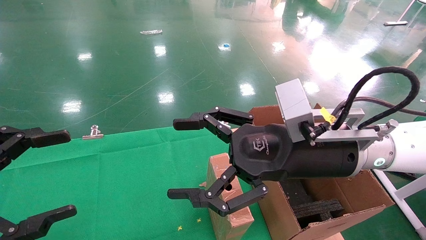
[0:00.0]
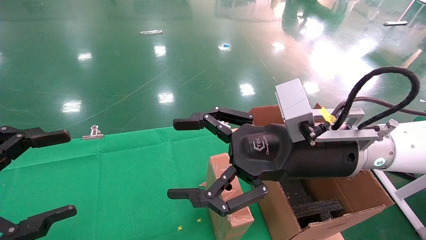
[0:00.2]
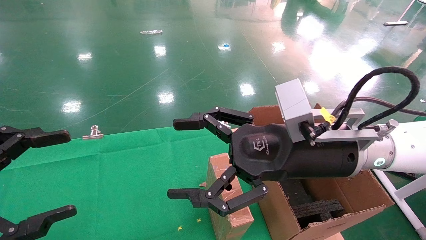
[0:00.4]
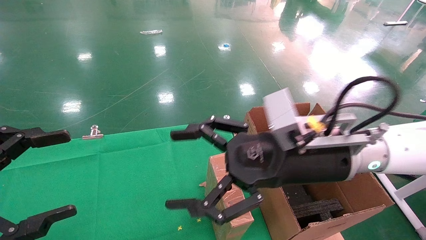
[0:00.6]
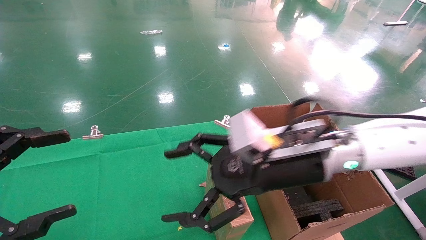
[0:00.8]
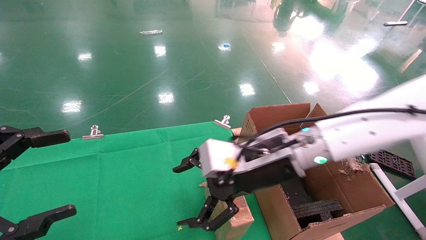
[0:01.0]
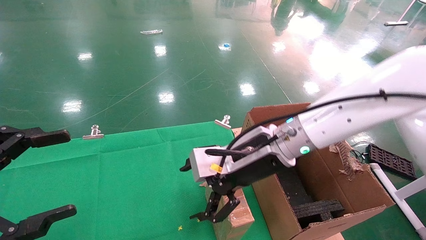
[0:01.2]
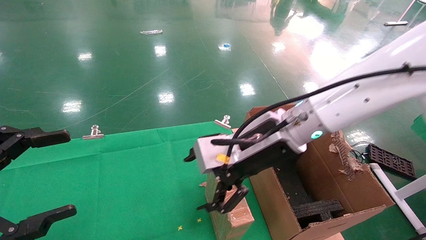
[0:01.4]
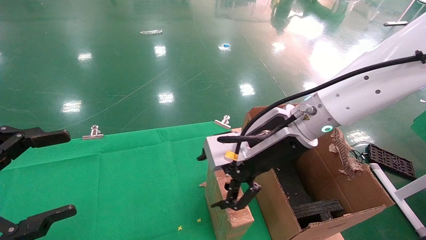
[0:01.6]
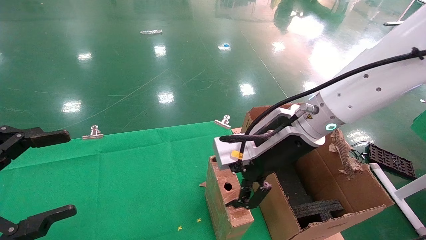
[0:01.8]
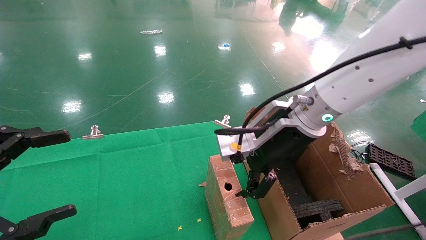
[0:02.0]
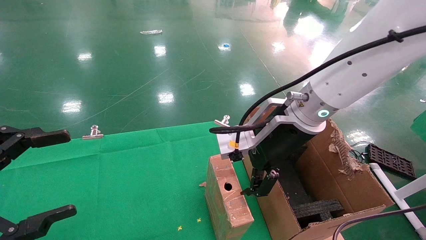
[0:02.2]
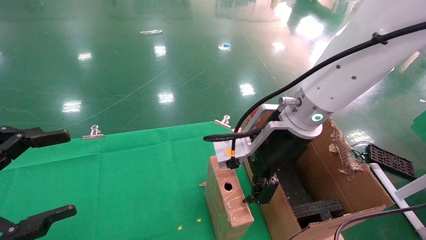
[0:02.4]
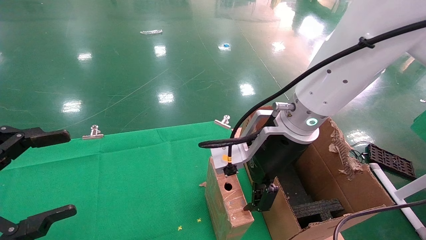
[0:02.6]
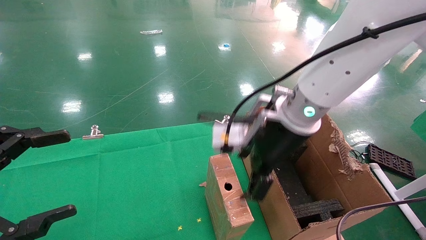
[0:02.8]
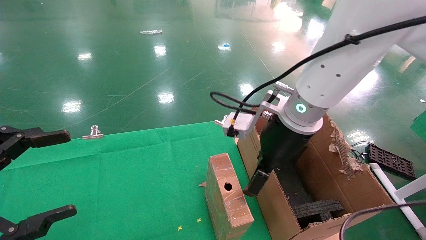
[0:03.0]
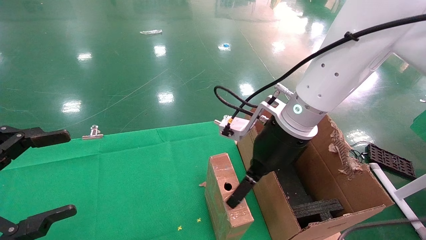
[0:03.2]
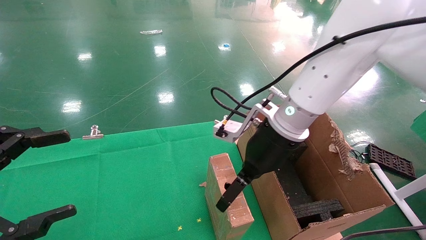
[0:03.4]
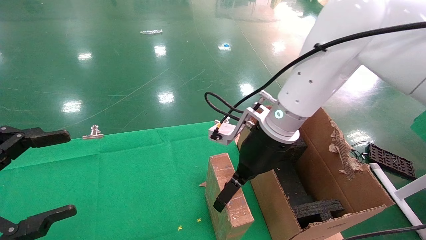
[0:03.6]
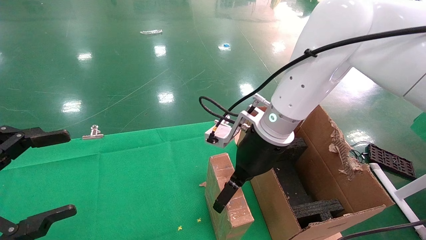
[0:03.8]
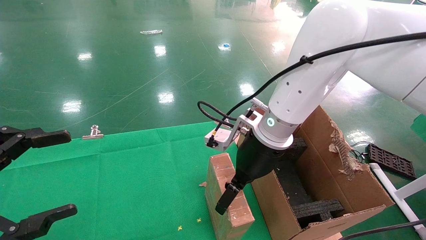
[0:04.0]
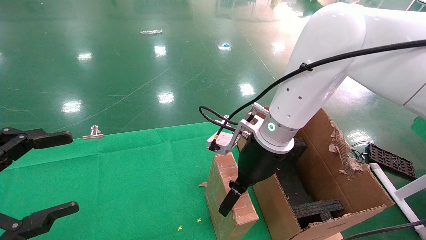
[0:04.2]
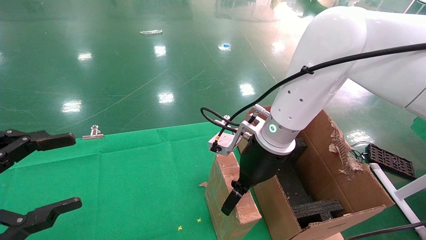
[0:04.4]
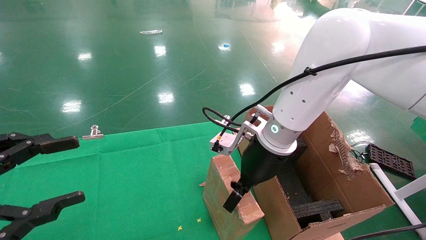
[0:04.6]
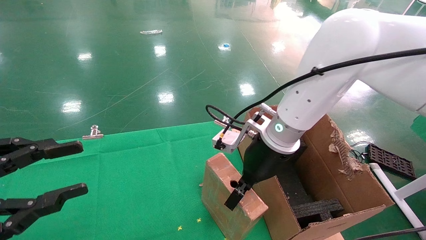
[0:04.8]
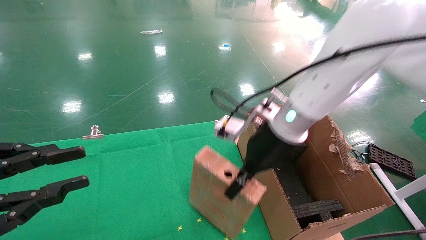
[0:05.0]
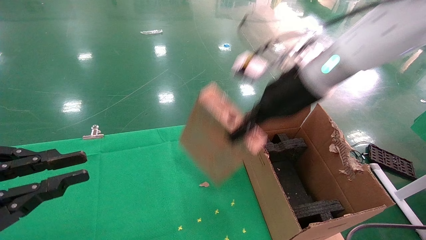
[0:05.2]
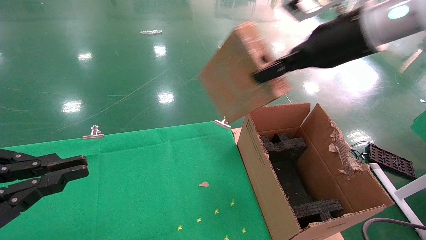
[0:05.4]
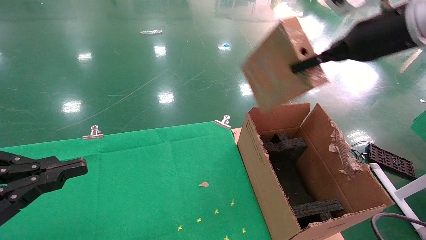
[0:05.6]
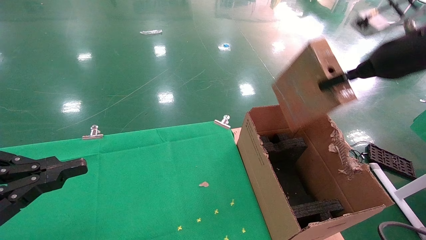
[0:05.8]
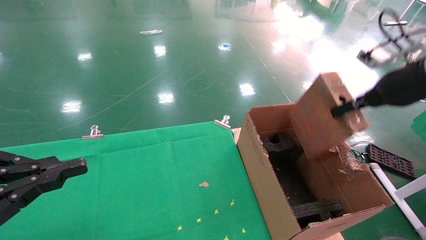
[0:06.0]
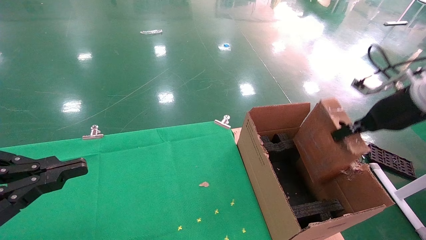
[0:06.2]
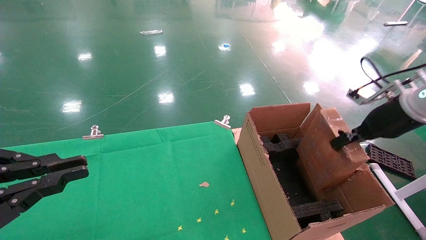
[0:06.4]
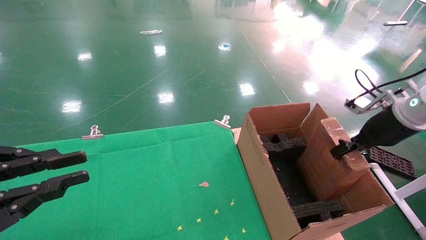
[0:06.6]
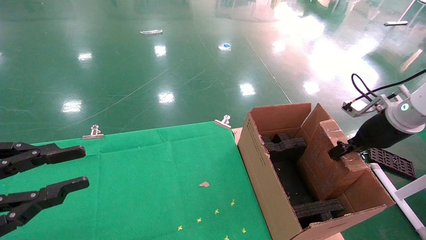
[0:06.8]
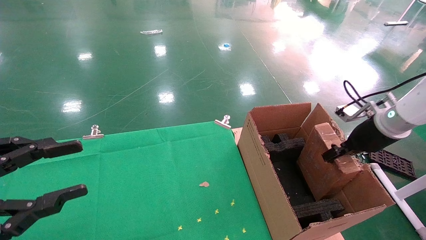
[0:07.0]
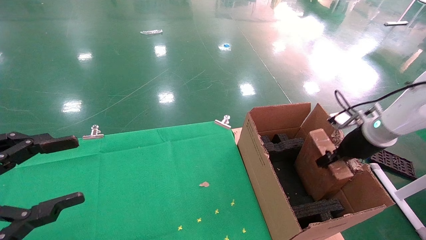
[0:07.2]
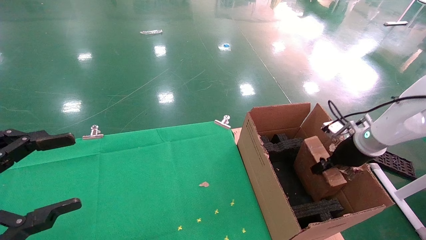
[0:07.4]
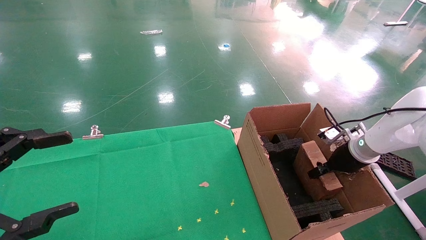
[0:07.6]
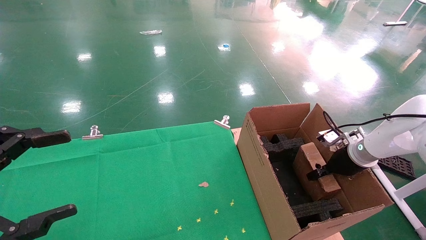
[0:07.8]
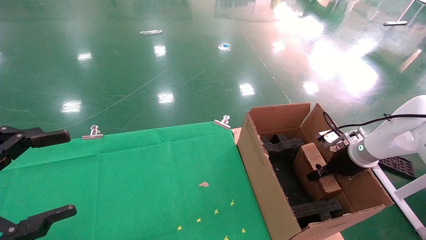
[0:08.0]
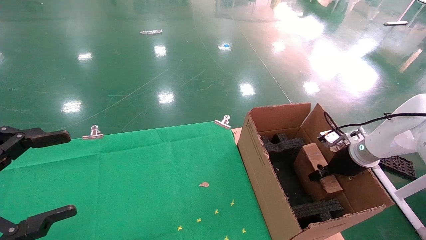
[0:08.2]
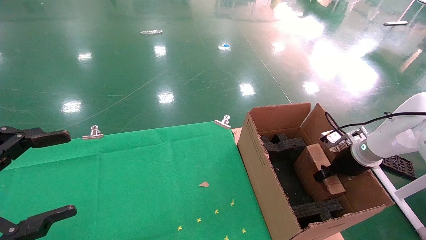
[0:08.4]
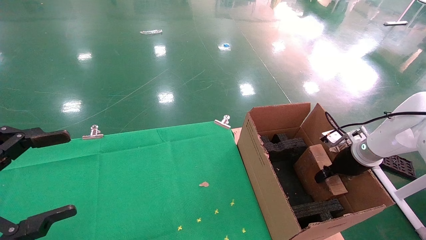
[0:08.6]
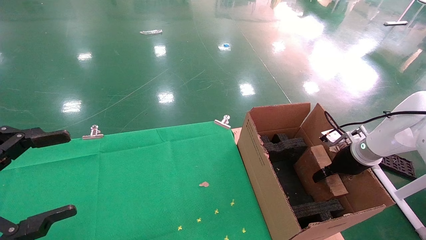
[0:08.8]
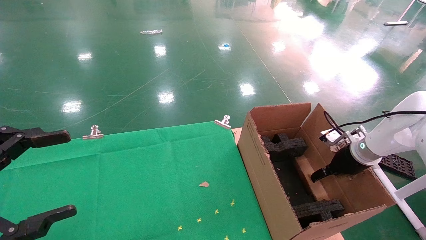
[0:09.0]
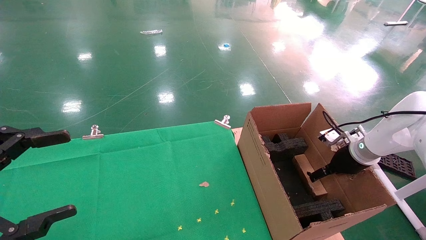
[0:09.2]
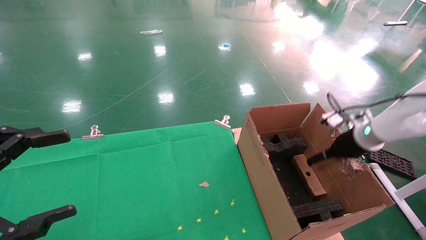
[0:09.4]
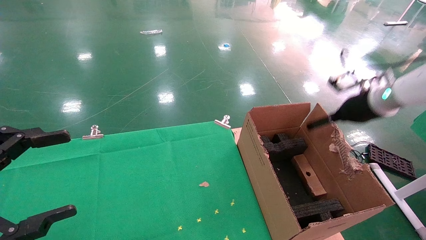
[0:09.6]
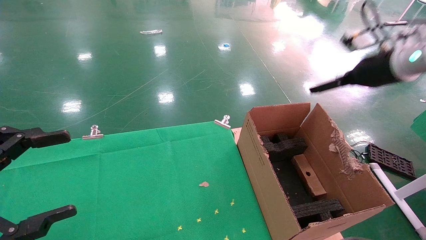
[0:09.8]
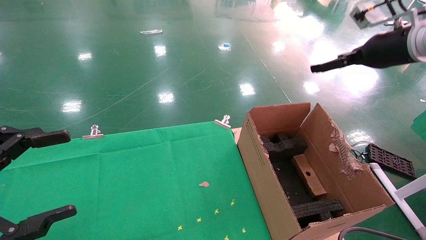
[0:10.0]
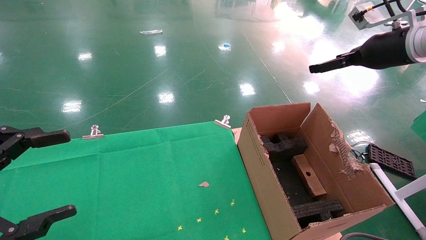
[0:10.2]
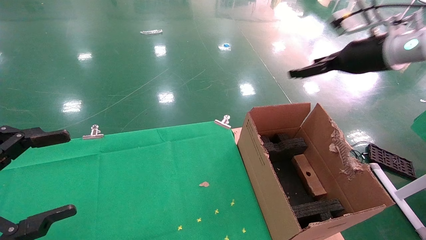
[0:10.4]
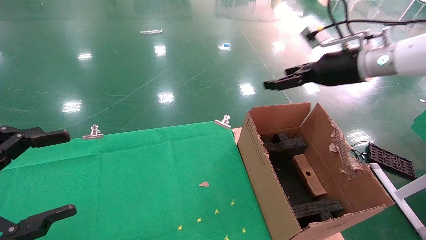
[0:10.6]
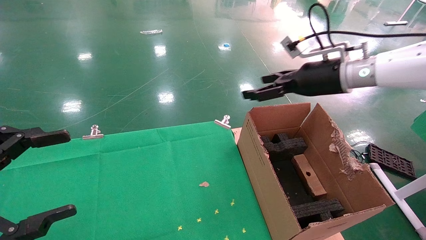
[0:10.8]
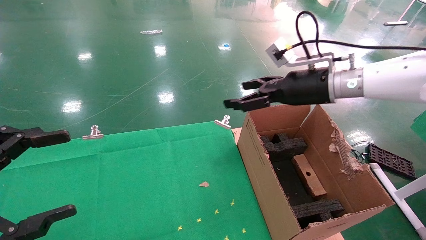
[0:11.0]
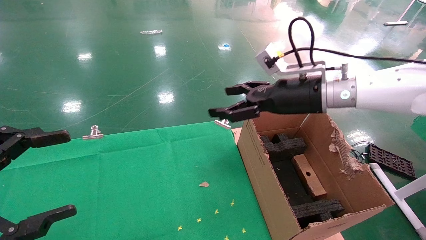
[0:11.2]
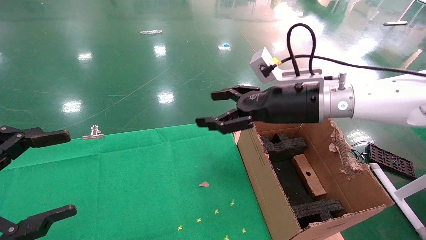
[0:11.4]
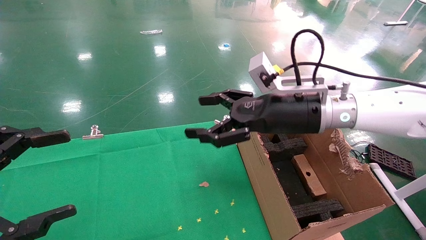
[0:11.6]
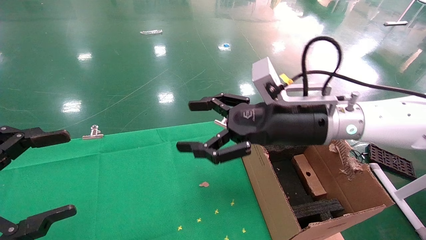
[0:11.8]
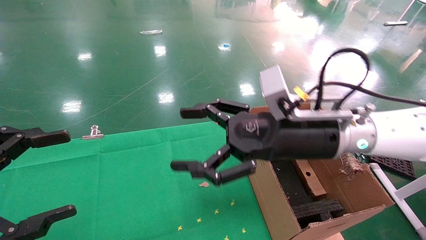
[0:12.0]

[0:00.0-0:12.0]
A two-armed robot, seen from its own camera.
Task of the whole recording: using a robotic arm to pick up a cardboard box and palace it the carton.
Step, 0:00.8 to 0:04.8: Pick up the mouse and the power cord paper box.
Step, 0:05.0 to 0:09.2: Place the mouse and the power cord paper box into the container.
0:00.0 to 0:01.6: The right gripper shifts about 5 cm forward.
0:03.0 to 0:04.4: The right gripper changes place by some 5 cm.
0:04.4 to 0:06.0: The right gripper is displaced to the right by approximately 25 cm, and closes. The left gripper closes its fingers.
0:06.0 to 0:07.6: The right gripper shifts about 20 cm downward; the left gripper opens its fingers.
0:07.6 to 0:09.0: The right gripper opens.
0:09.0 to 0:10.4: The right gripper goes roughly 25 cm upward, and opens up.
0:10.4 to 0:12.0: The right gripper moves to the left, backward and downward, some 25 cm.

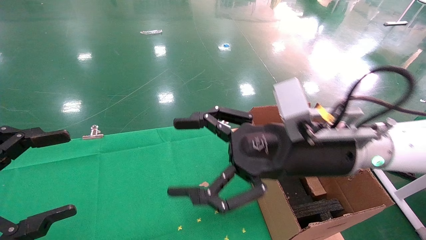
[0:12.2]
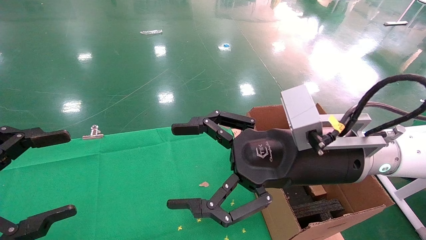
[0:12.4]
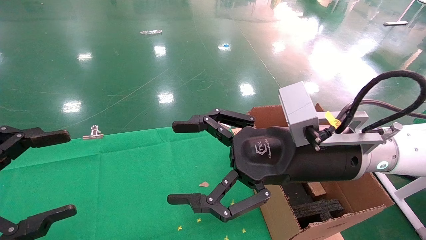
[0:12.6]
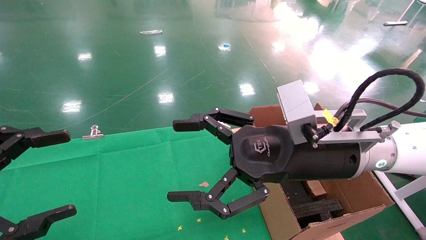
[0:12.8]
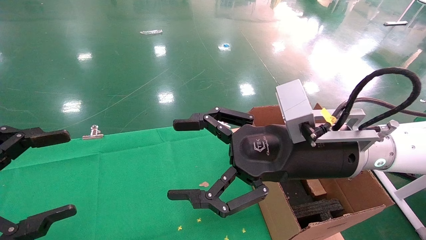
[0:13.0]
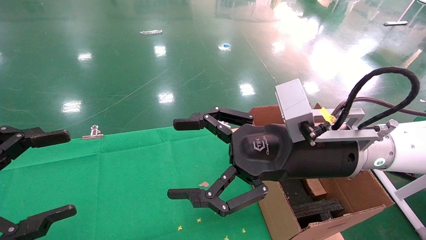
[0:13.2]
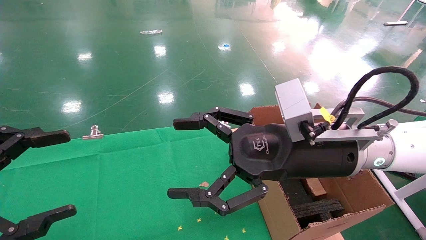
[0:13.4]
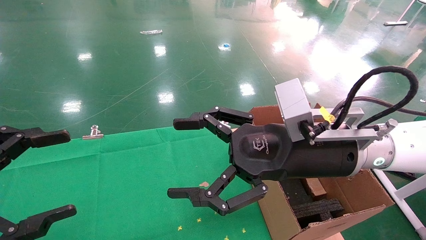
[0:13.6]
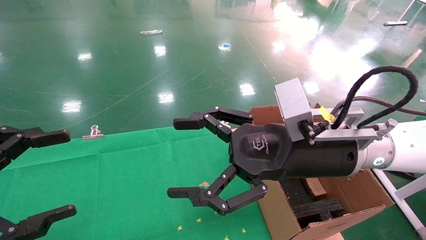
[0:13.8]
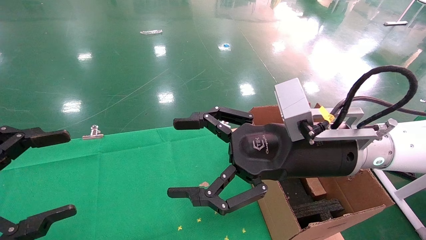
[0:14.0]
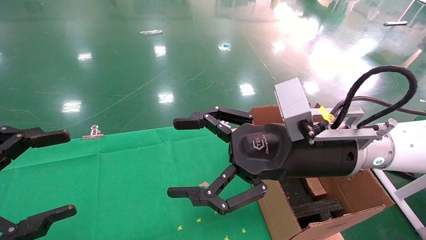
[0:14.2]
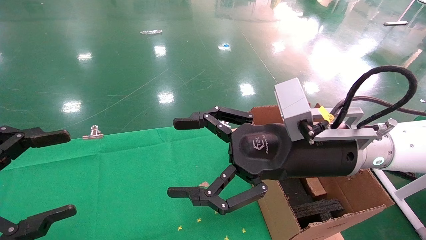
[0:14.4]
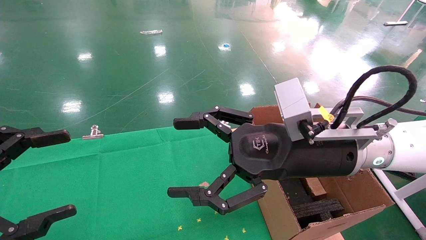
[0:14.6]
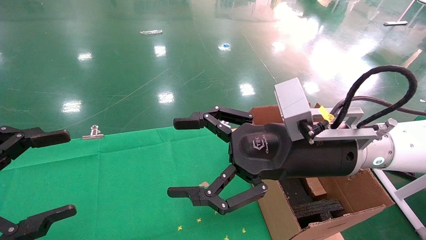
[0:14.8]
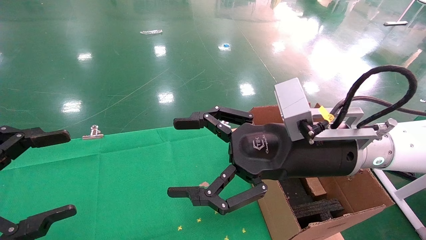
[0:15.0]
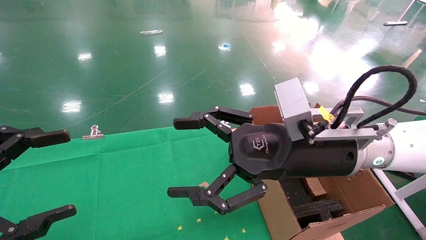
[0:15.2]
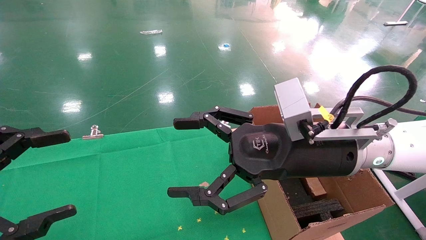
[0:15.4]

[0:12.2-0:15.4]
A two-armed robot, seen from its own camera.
Task of the whole recording: using a robotic arm to pick up a cardboard box and palace it the carton.
0:12.2 to 0:15.4: Neither gripper changes place.
